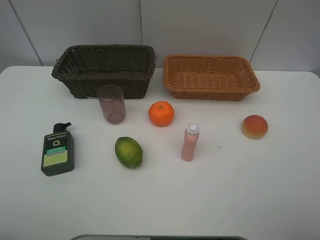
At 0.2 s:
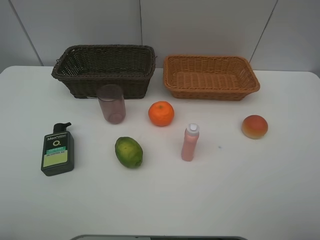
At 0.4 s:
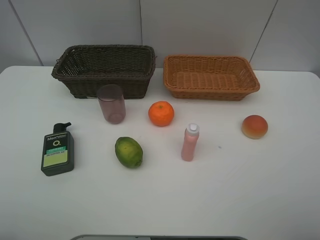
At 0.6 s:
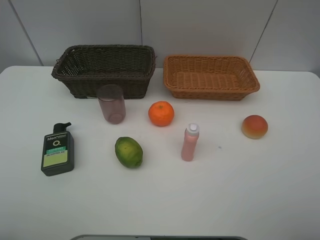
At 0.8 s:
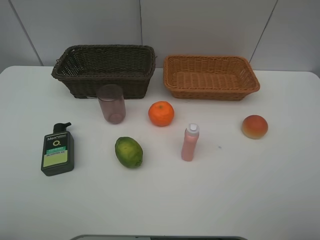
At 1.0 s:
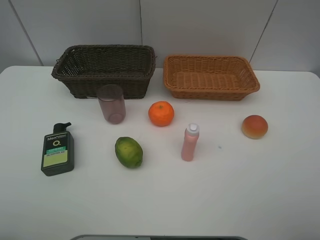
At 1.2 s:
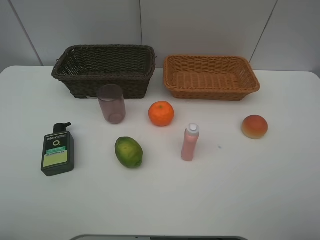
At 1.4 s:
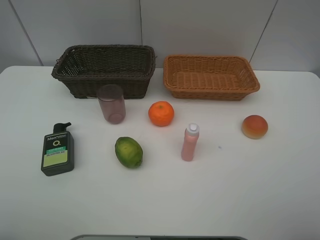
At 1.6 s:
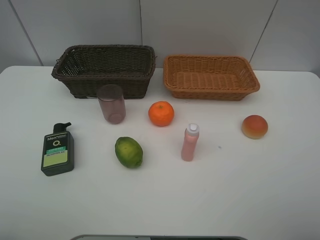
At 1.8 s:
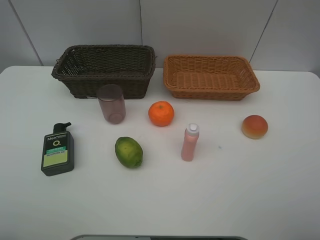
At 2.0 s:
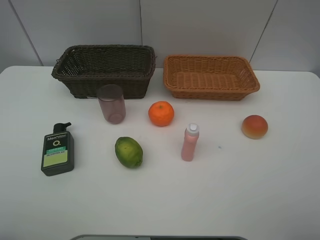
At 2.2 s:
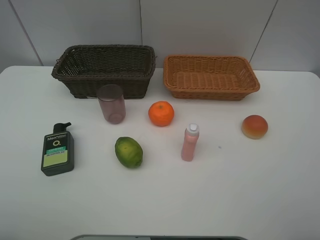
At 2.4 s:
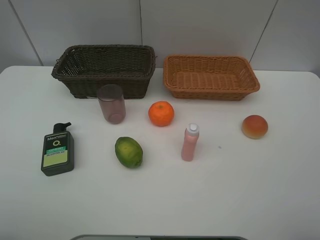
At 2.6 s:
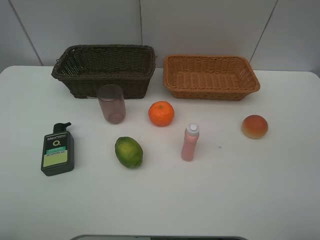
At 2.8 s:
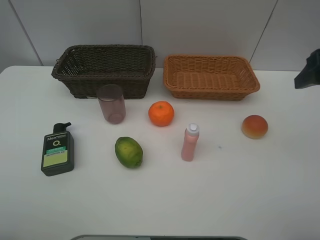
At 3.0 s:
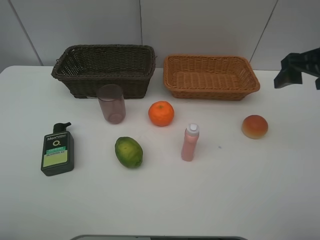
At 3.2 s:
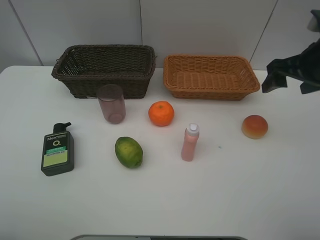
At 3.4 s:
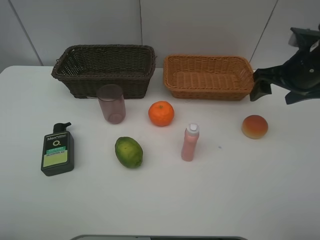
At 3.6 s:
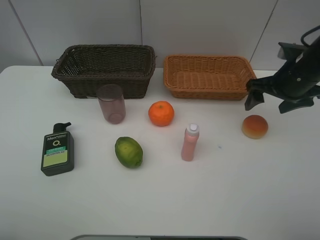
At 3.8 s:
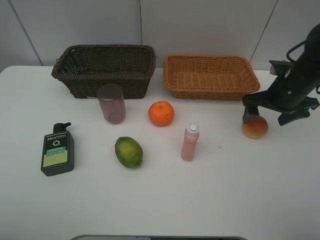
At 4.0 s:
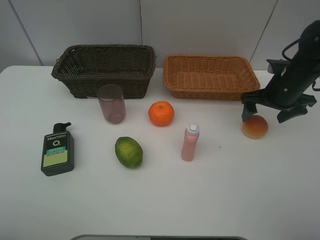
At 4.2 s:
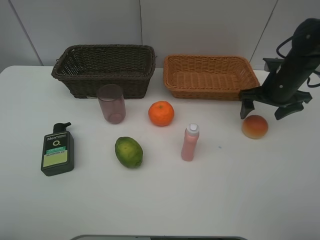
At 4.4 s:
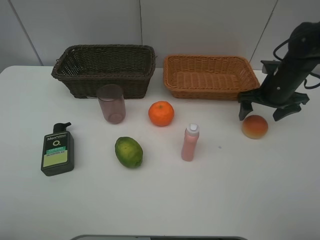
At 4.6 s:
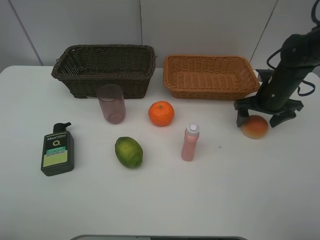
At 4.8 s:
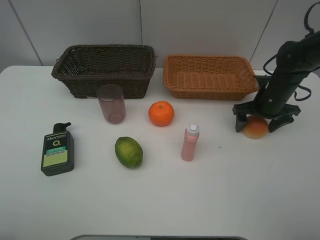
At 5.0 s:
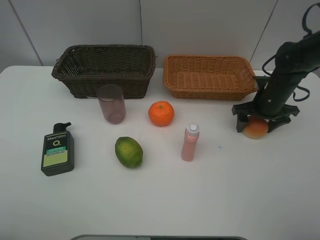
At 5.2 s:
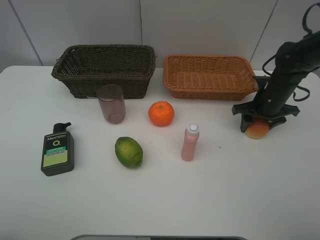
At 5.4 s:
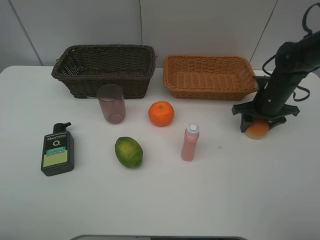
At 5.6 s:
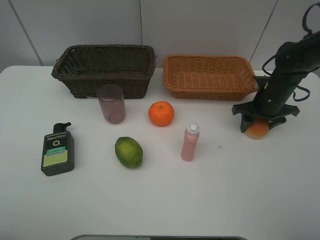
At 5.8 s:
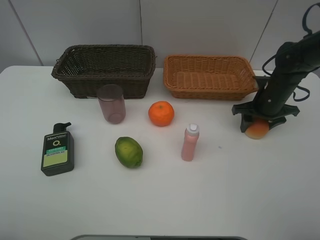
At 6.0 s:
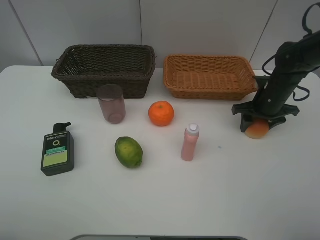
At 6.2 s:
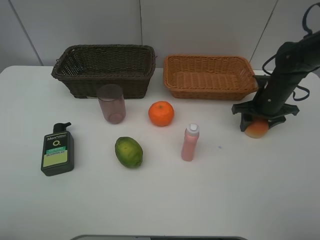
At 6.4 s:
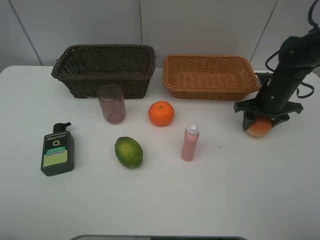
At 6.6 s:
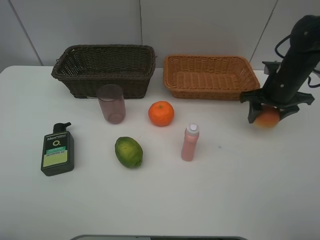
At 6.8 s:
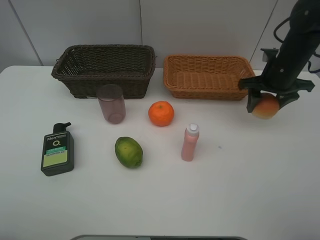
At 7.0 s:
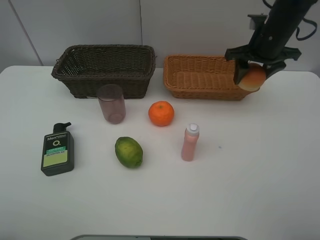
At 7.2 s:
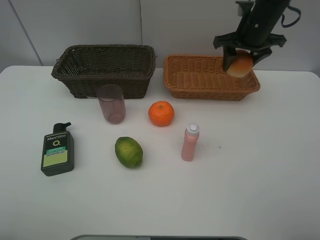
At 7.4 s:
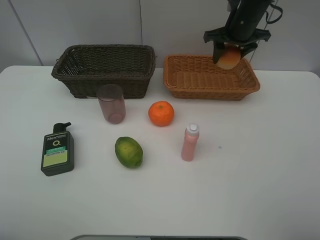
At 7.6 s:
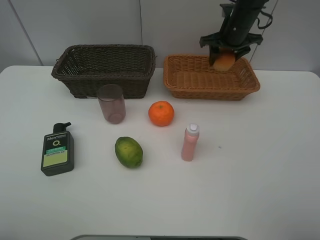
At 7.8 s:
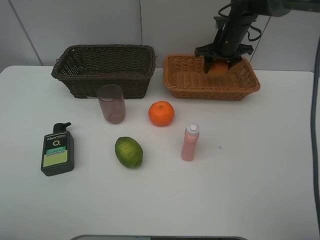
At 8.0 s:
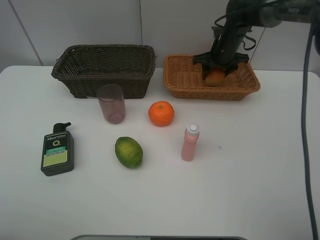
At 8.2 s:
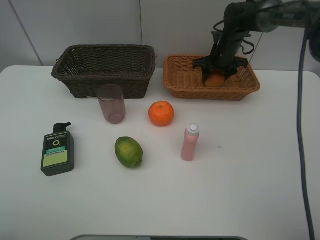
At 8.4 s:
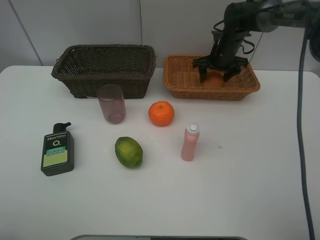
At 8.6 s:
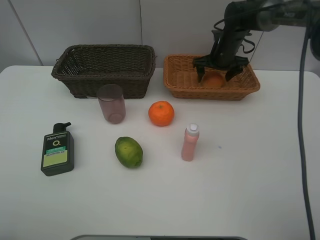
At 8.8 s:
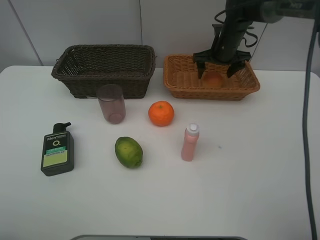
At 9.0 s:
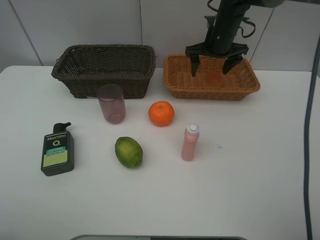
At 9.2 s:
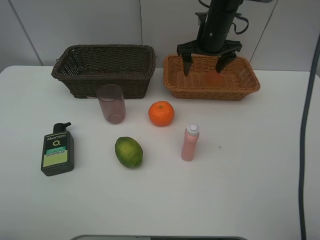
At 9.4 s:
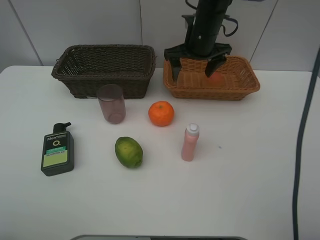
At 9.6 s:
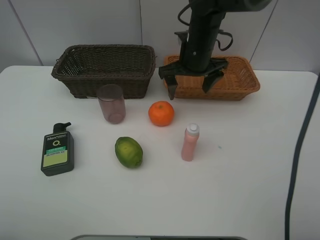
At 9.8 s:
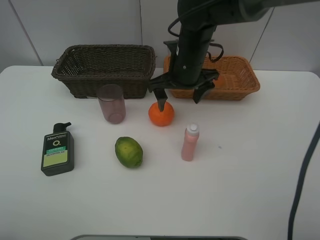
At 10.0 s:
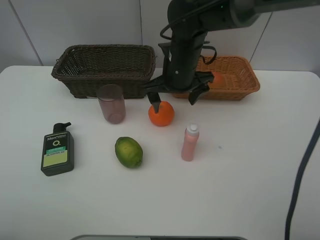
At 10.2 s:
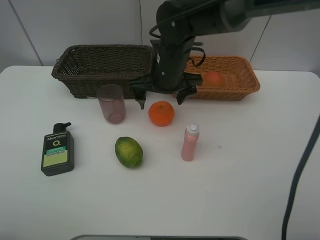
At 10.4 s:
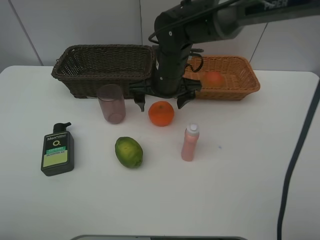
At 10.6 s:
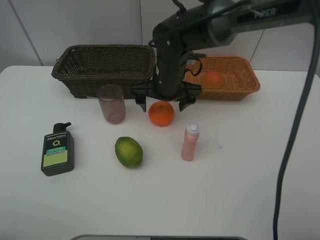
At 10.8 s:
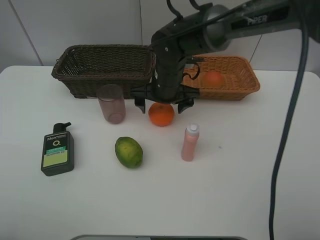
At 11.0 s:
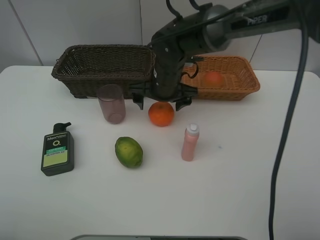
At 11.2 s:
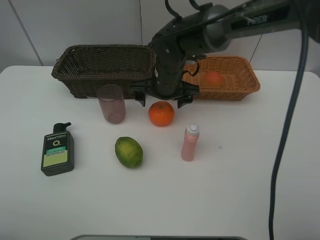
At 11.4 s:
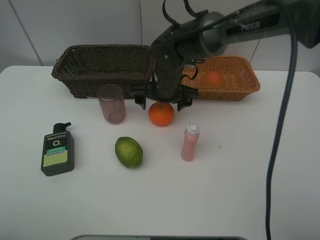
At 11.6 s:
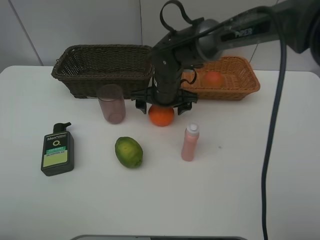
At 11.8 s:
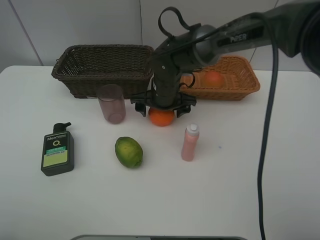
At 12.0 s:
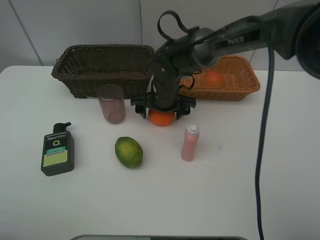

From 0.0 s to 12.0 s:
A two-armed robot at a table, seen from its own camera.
Task of the whole recording: place multiple objects separately in different baskets.
From 0.0 s to 1.6 s: The two grippers keep their place.
From 1.6 s to 3.0 s: The right gripper shifts roughly 25 cm forward.
From 3.0 s to 4.4 s: The right gripper heads downward and forward, covering about 15 cm.
From 4.4 s to 6.0 s: The right gripper closes up.
From 6.0 s to 7.6 s: The right gripper shifts some 20 cm forward, upward and to the left.
From 7.6 s to 9.0 s: The right gripper reaches roughly 10 cm downward, then returns, and opens up.
From 9.0 s to 10.4 s: The right gripper is displaced to the left and backward by roughly 20 cm.
From 10.4 s to 12.0 s: The right gripper heads downward, covering about 5 cm.

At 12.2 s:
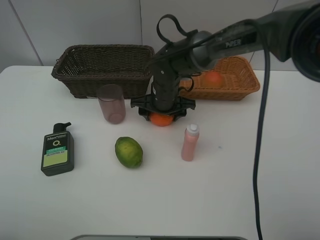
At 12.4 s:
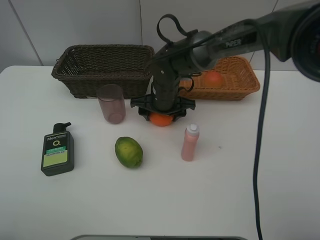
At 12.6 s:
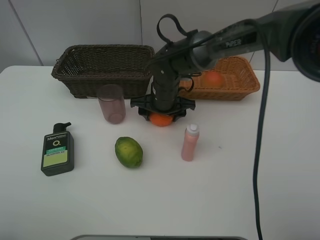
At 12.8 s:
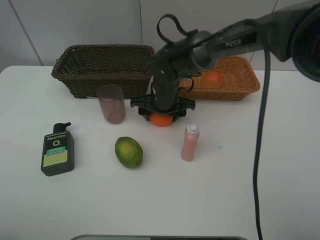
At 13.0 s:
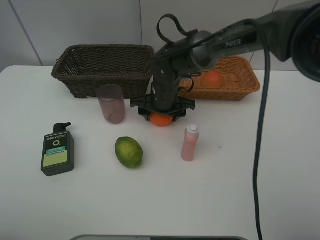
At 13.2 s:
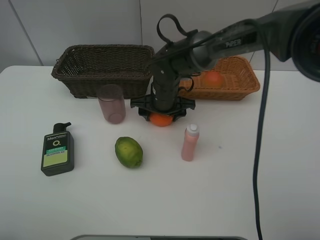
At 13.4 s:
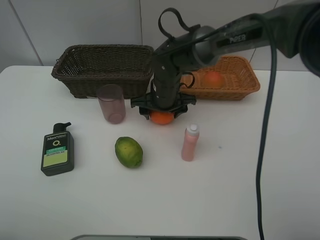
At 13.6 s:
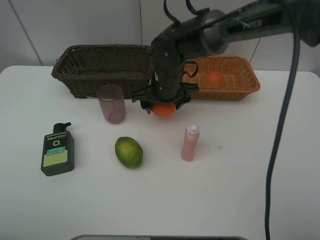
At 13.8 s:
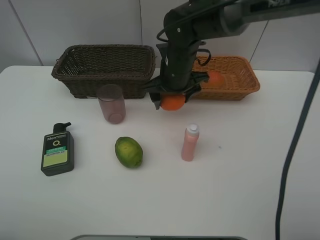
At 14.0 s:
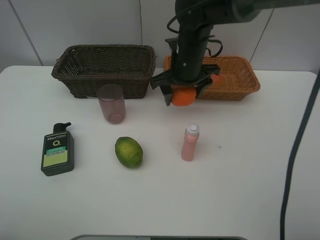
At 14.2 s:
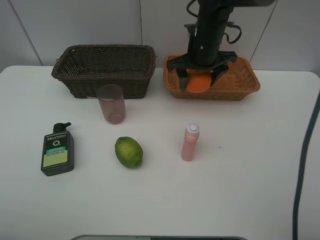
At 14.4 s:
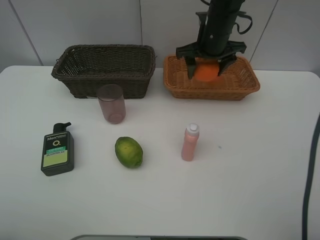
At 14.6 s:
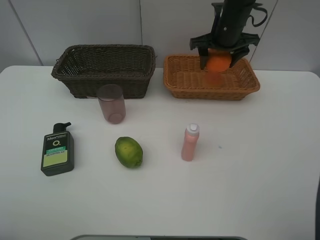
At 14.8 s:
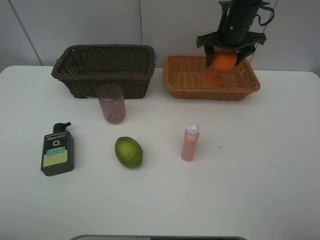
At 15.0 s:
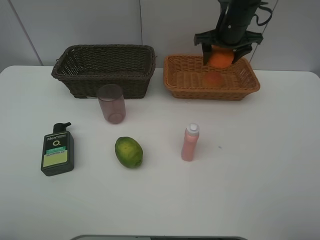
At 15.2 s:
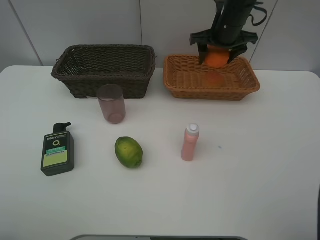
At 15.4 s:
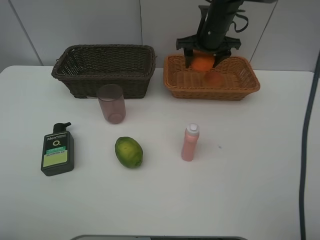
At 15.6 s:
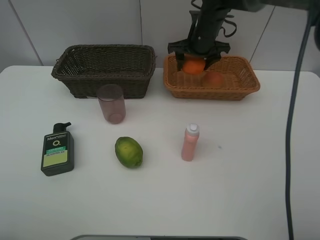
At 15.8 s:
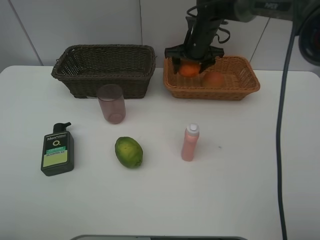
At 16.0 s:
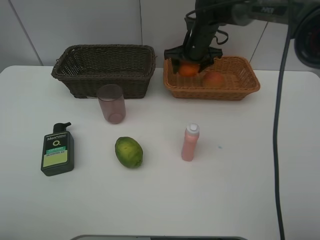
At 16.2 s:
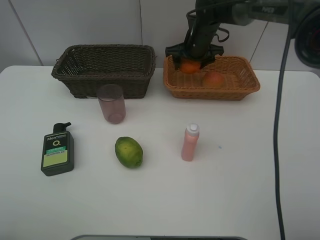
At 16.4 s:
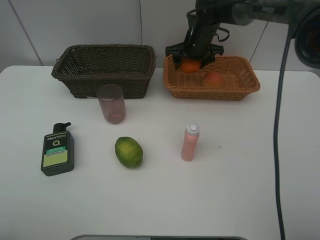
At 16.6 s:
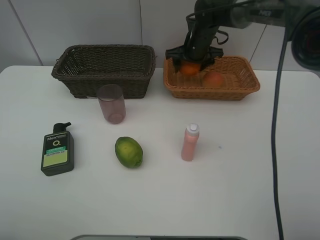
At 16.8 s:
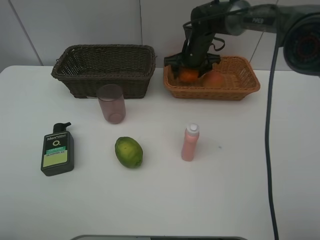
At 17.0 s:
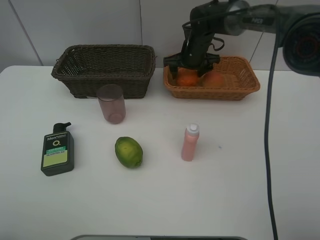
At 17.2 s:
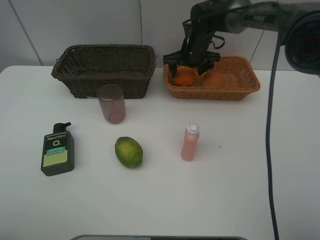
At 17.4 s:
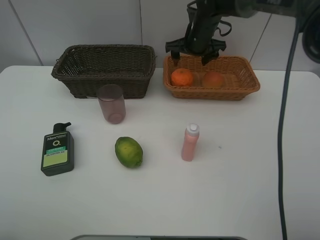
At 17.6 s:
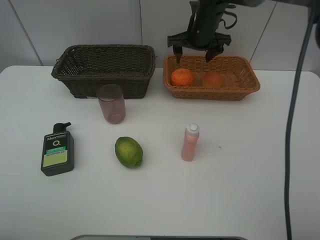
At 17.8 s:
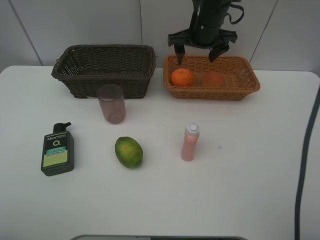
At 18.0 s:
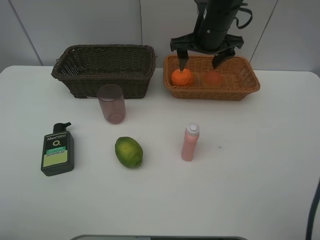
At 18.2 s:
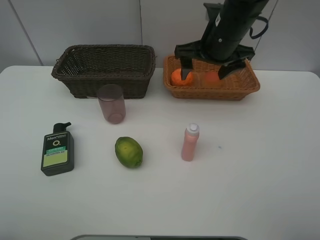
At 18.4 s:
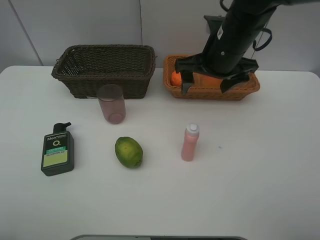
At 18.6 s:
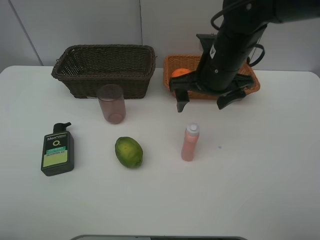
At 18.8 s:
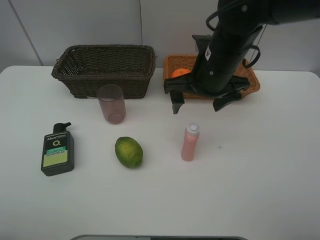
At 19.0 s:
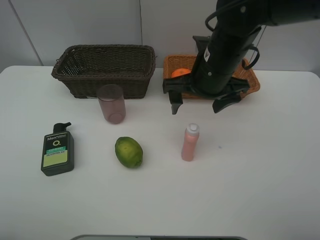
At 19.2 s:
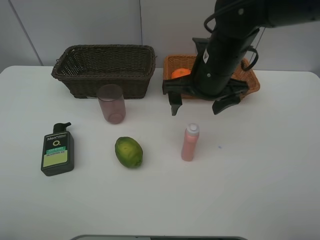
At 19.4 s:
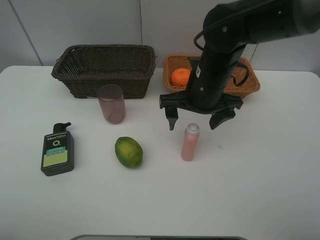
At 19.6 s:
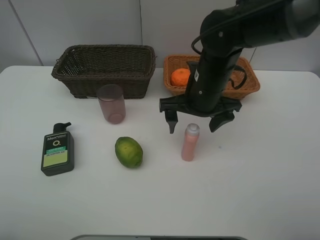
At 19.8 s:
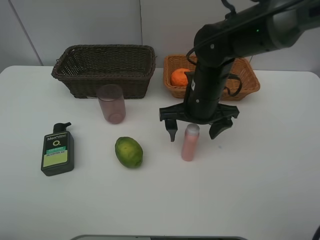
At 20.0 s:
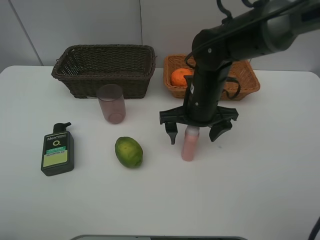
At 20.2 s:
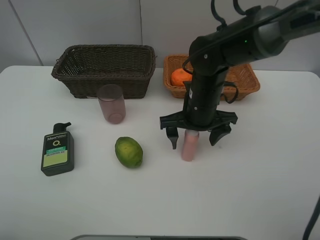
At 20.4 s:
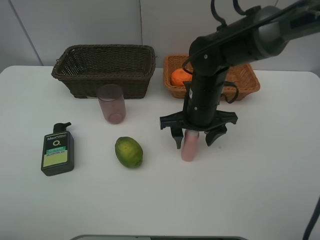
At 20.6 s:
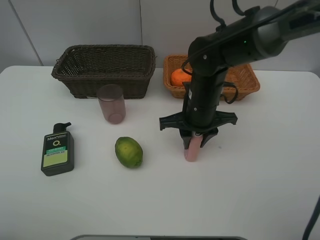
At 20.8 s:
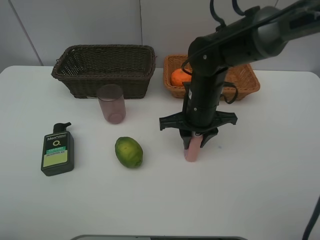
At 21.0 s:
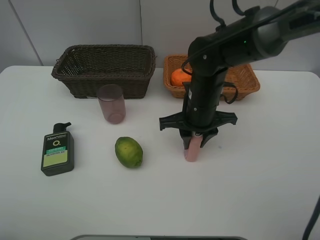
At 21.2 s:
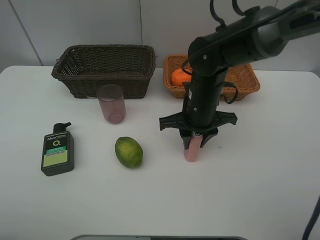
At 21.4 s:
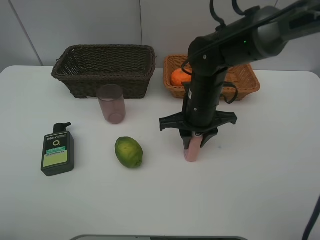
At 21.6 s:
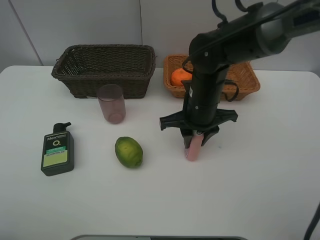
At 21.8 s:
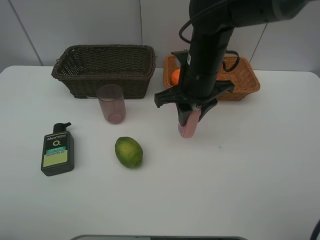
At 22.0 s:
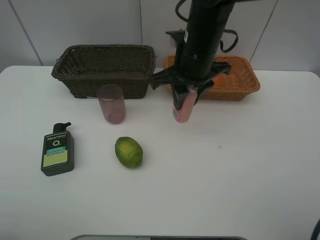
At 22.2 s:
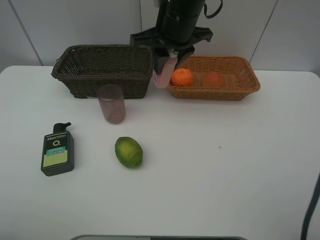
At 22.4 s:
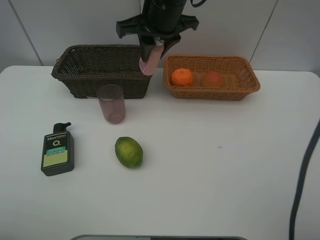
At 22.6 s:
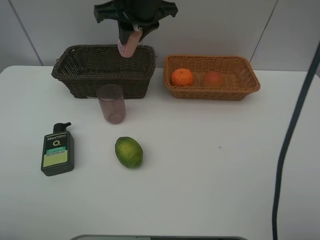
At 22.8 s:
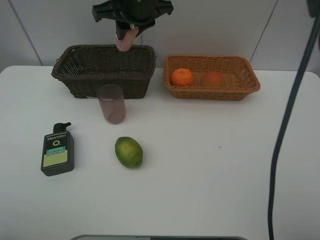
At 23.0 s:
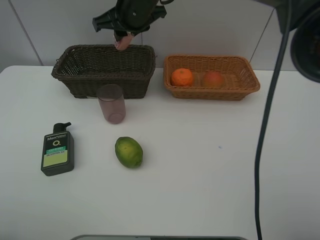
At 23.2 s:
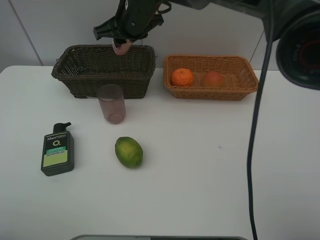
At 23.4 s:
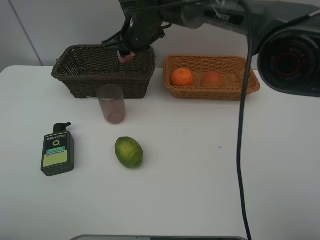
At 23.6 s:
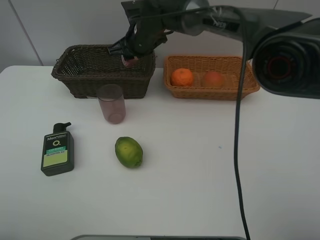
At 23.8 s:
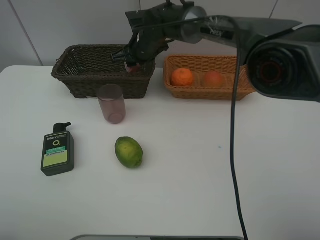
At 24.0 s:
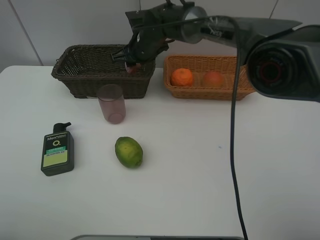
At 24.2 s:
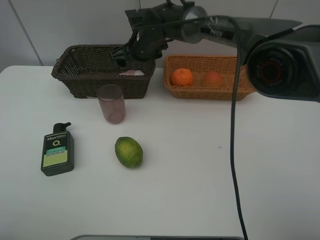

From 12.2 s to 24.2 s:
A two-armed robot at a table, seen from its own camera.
Task of the whole recording: place multiple objects separately in different baskets.
From 12.2 s to 13.8 s: The right gripper travels upward by roughly 5 cm.
From 13.8 s to 15.2 s: The right gripper moves to the right, forward and upward, some 15 cm.
From 15.2 s to 16.6 s: The right gripper travels downward by approximately 5 cm.
From 16.6 s to 18.2 s: The right gripper is displaced backward and upward by about 15 cm.
From 18.2 s to 19.8 s: The right gripper heads downward and backward, covering approximately 10 cm.
From 19.8 s to 21.2 s: The right gripper closes up.
From 21.2 s to 22.6 s: The right gripper shifts approximately 20 cm upward, to the left and forward.
From 22.6 s to 24.2 s: The right gripper travels downward and forward by some 15 cm, and opens.
